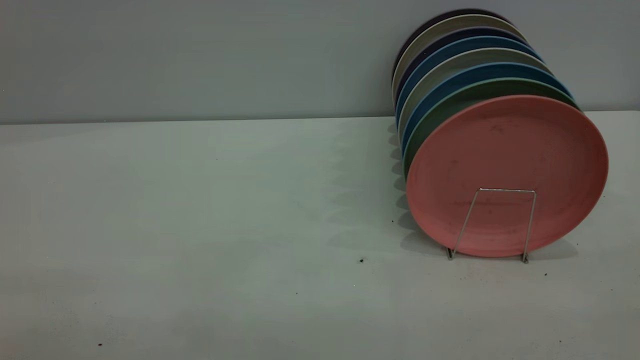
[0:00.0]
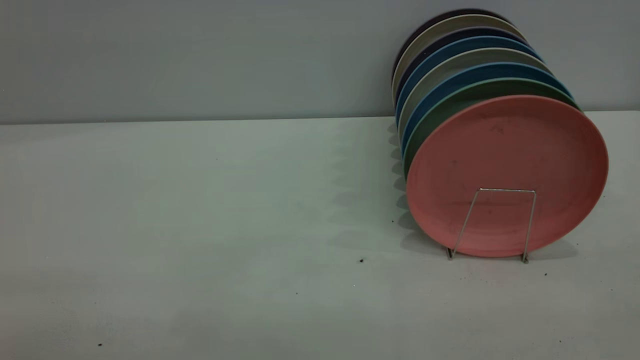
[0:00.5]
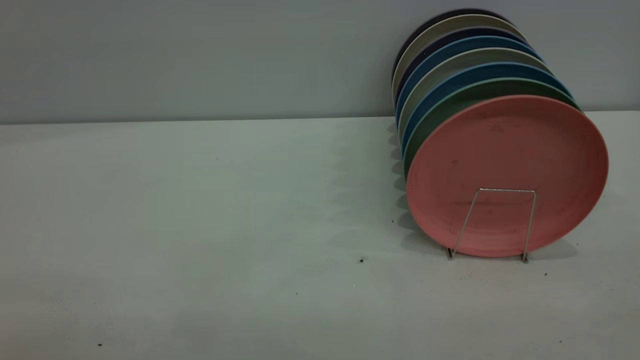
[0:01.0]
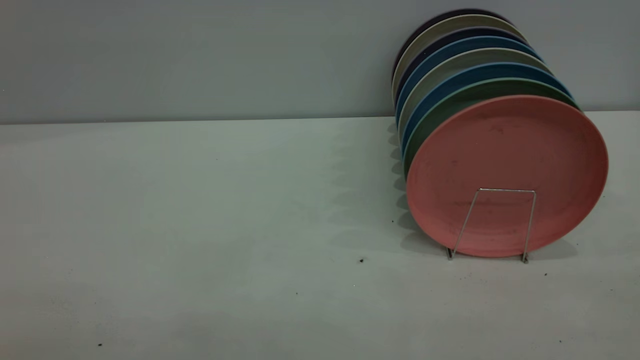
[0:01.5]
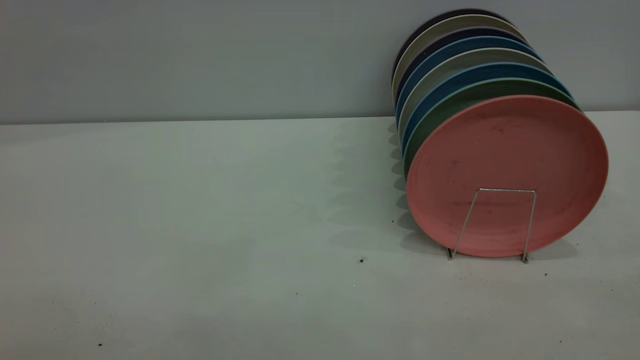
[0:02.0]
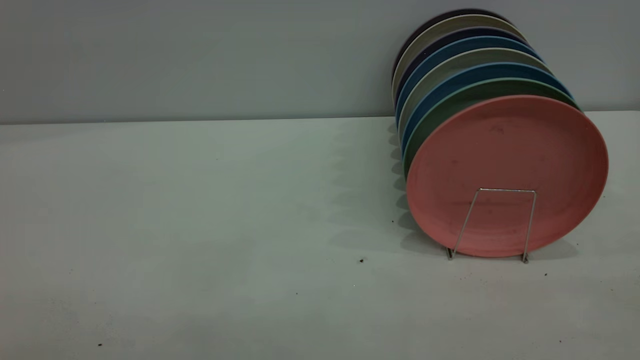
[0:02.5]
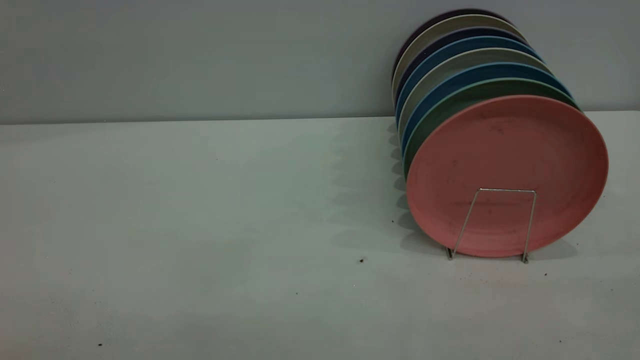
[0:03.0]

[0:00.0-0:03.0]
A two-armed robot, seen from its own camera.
Task of the whole recording: put the plate on the plate rack.
0:01.5 to 0:03.0: Both grippers stay put.
